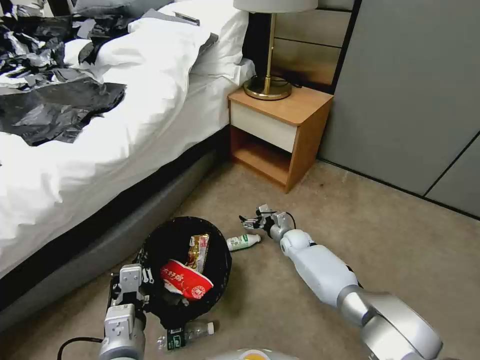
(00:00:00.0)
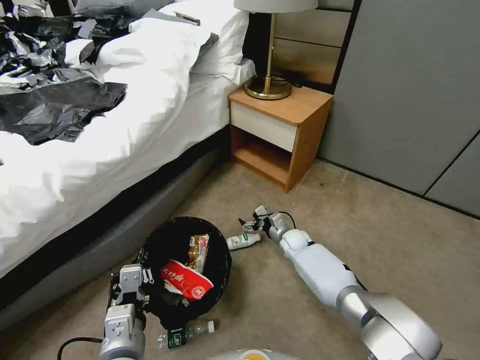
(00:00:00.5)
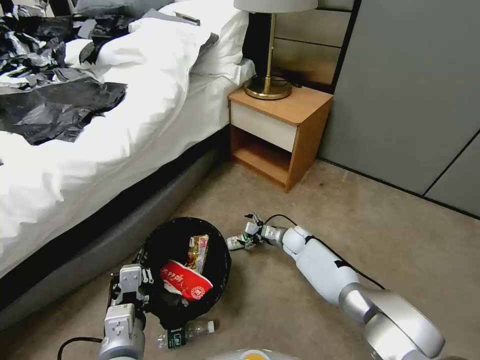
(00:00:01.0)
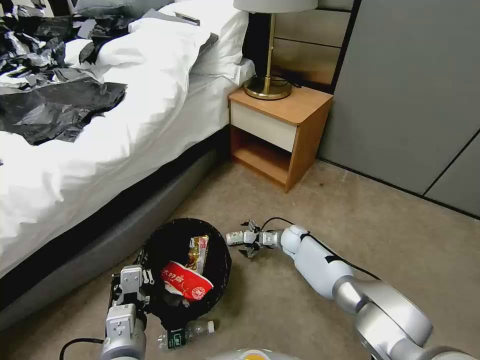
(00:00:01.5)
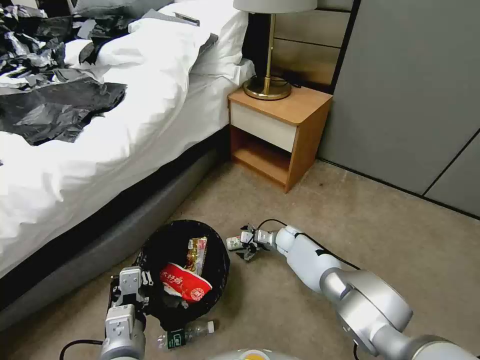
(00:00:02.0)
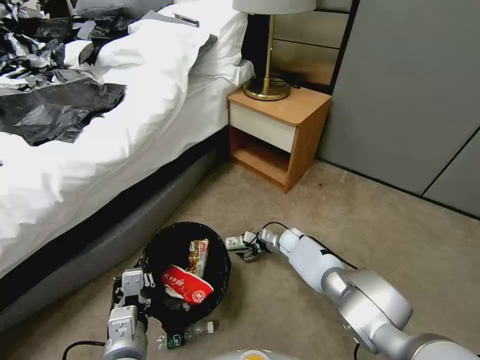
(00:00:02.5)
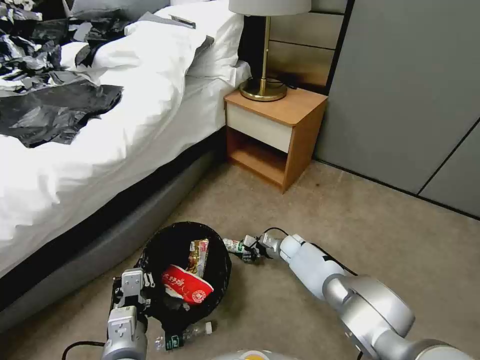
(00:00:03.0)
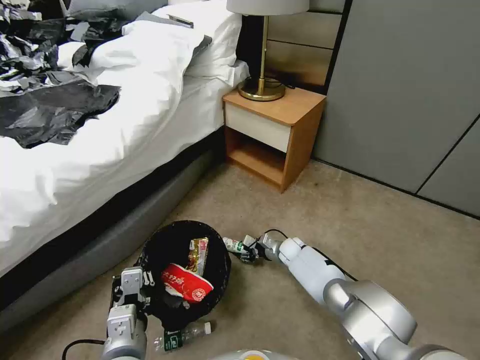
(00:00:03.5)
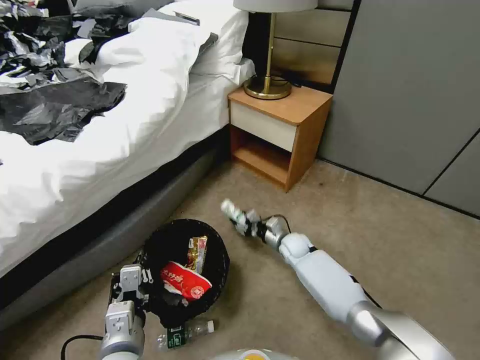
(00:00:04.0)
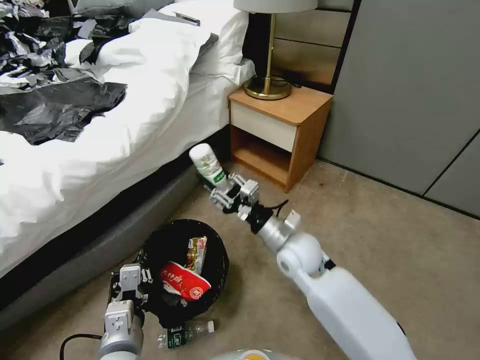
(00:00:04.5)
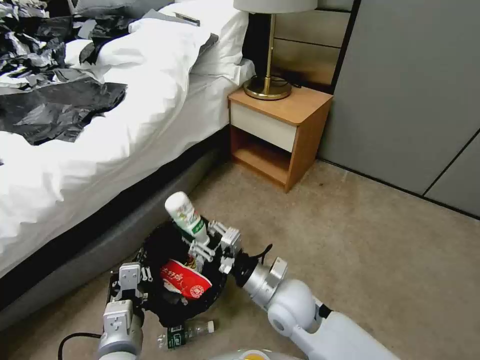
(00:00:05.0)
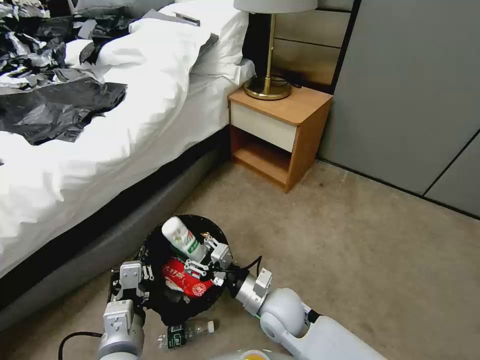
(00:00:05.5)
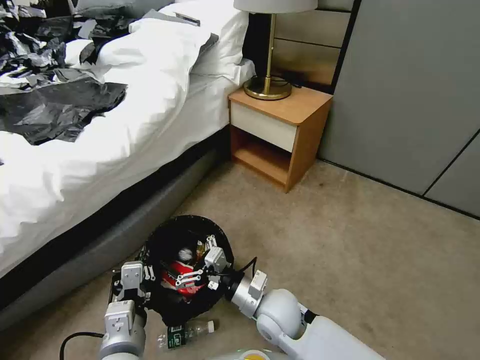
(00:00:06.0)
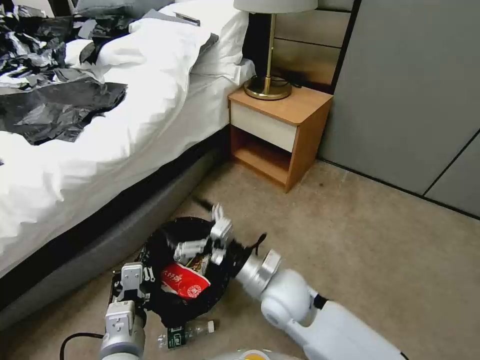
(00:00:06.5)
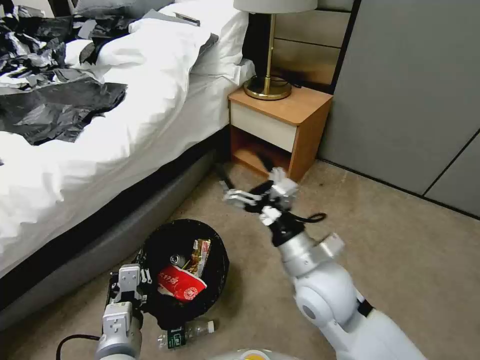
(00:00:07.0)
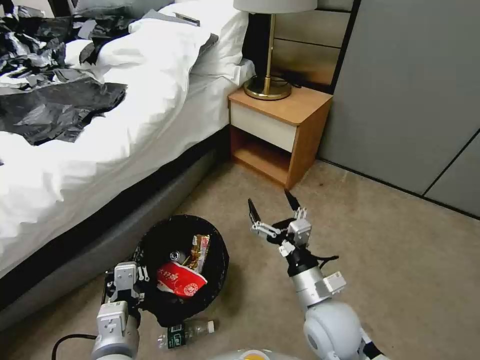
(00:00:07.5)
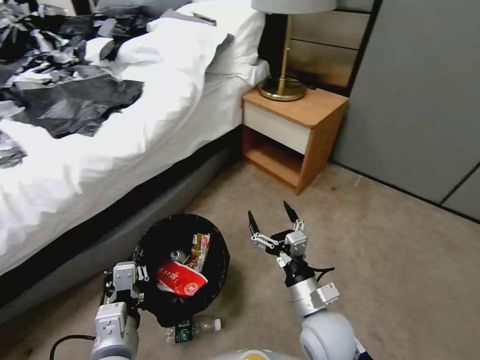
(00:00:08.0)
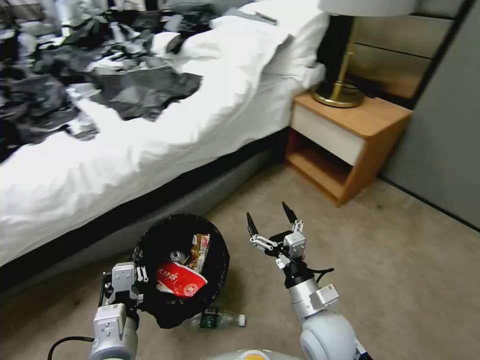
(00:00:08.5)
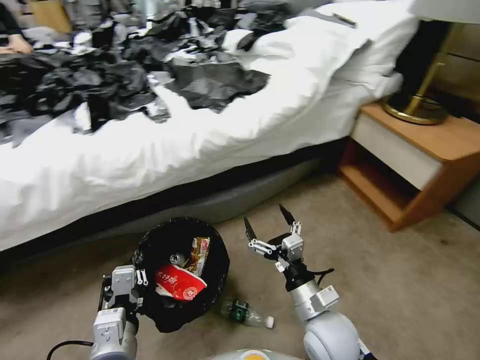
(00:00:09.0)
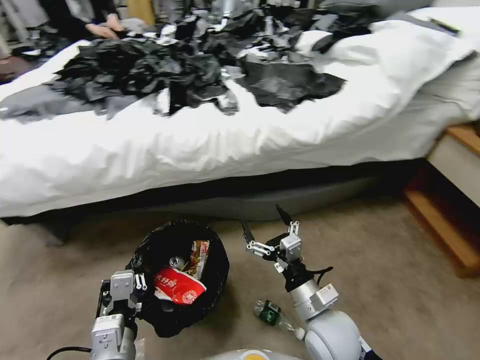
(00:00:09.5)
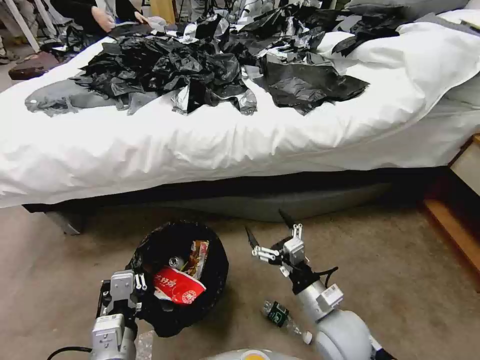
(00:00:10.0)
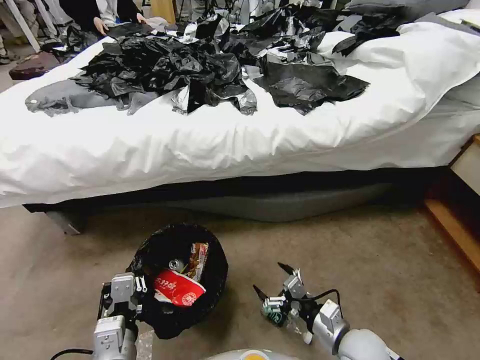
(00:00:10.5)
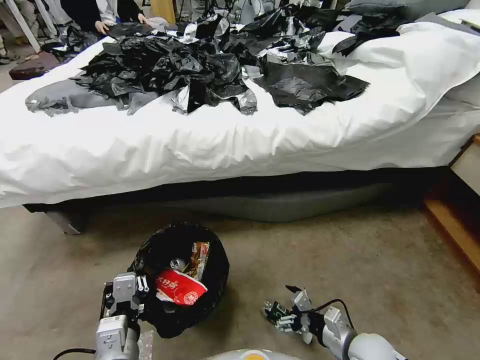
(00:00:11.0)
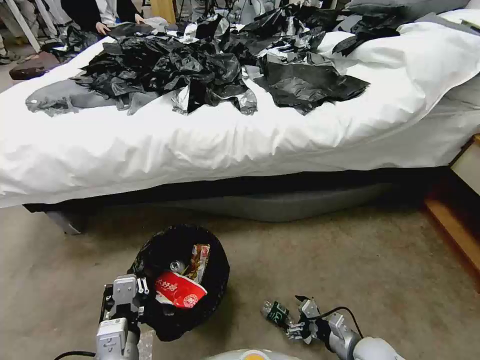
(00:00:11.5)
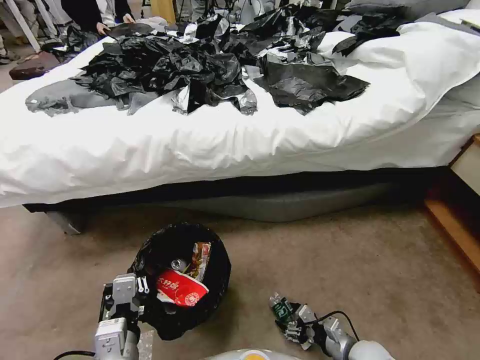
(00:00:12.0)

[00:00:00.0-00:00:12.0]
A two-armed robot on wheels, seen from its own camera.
Task of the whole recording: Pick up the trash bin, then pick up the garbage from the floor and place it into the trash bin.
00:00:02.0 to 00:00:04.0: The right gripper shifts by about 5 cm, and closes.
00:00:04.0 to 00:00:06.0: The right gripper moves backward, upward and to the left, some 25 cm, and opens.
00:00:06.0 to 00:00:08.0: The right gripper heads to the right, covering roughly 10 cm, and travels upward and back again, roughly 15 cm each way.
00:00:10.0 to 00:00:12.0: The right gripper heads downward and to the right, covering approximately 20 cm.

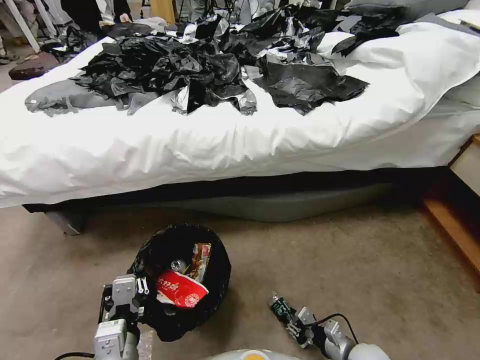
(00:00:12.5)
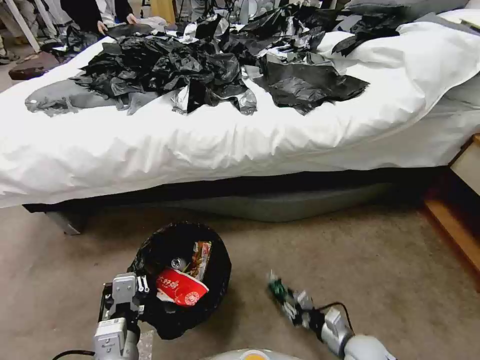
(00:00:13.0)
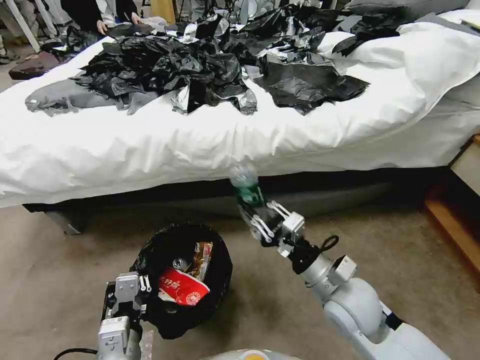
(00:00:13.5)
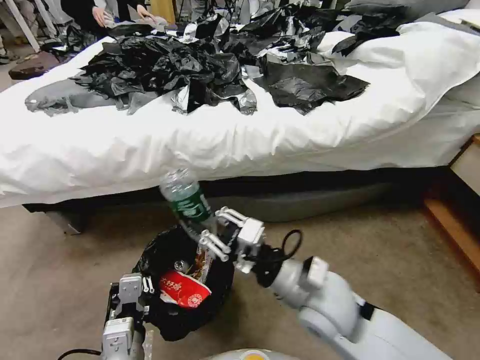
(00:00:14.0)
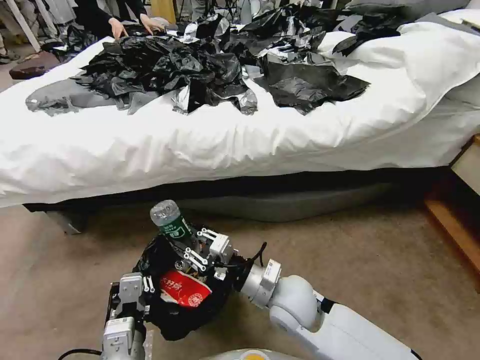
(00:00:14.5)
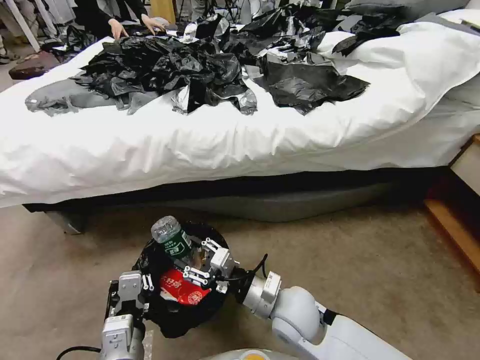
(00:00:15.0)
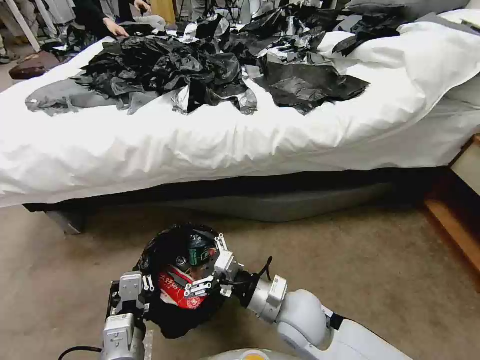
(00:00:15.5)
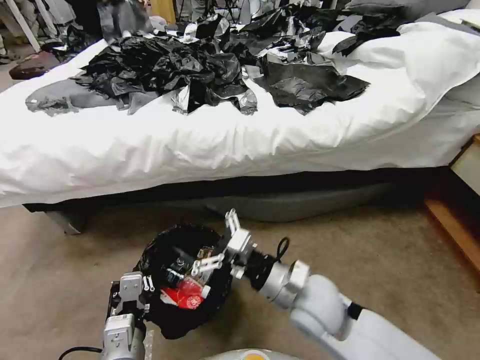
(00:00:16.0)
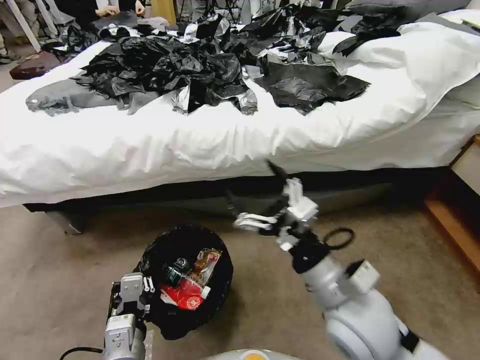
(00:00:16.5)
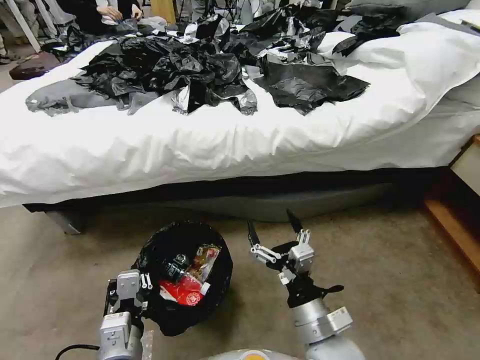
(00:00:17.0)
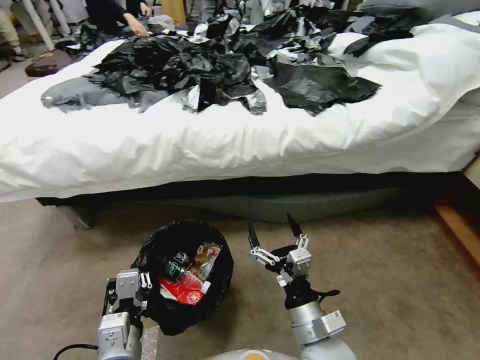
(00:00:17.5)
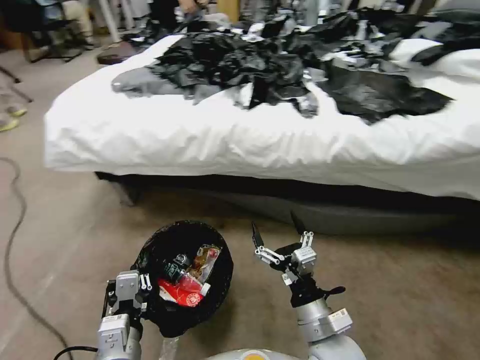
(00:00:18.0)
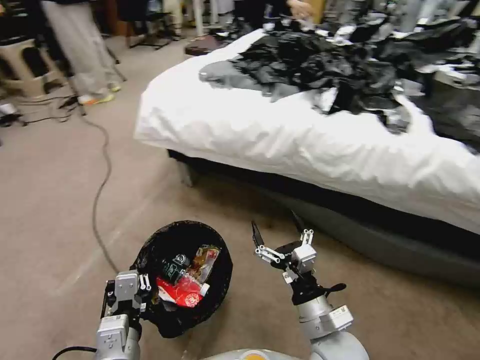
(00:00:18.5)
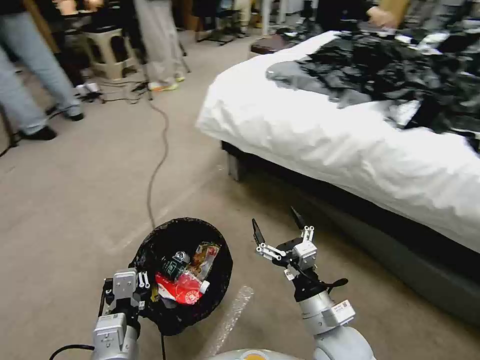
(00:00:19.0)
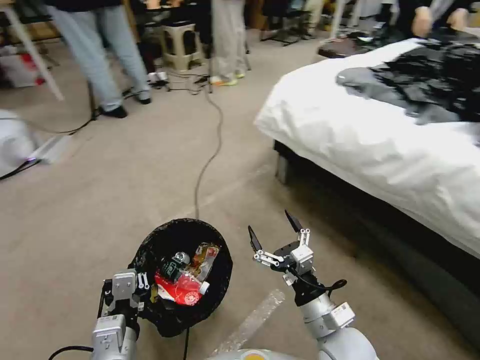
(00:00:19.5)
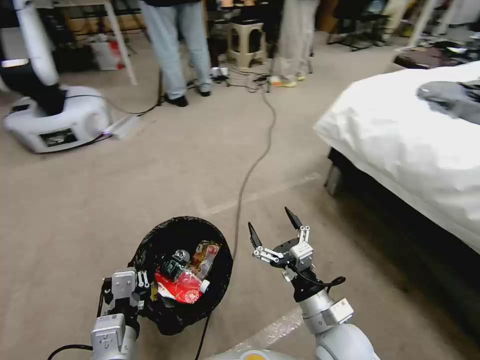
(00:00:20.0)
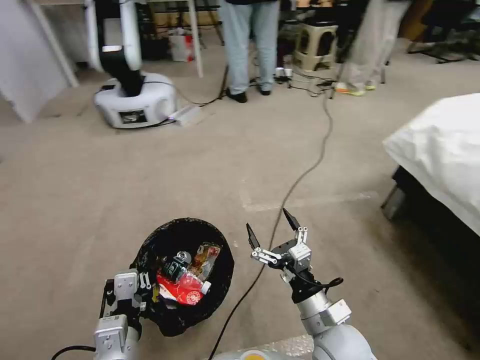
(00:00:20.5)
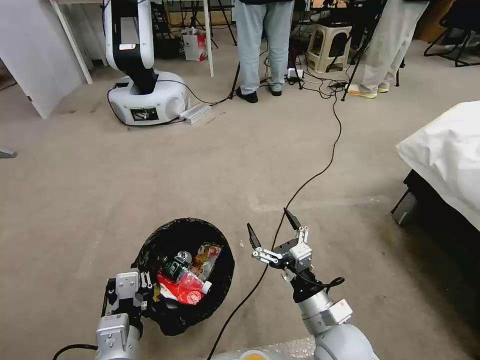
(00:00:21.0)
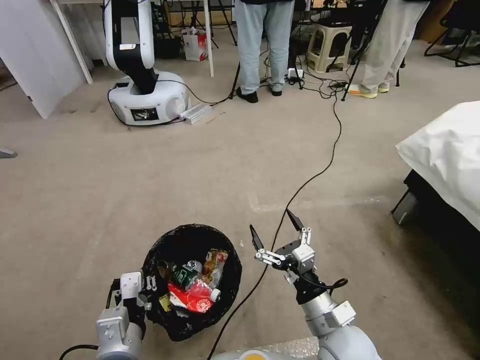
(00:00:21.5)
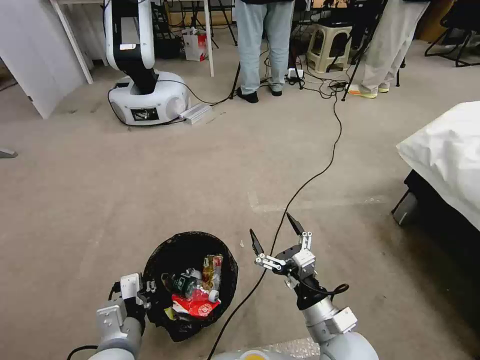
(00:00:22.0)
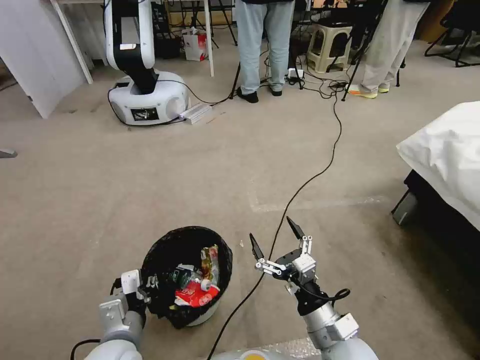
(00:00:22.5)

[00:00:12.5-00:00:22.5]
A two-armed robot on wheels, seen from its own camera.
Task of the whole recording: Pick up the trash bin, then pick up the garbage from the floor and place it into the trash bin.
00:00:12.5 to 00:00:14.5: The right gripper heads upward and to the left, covering roughly 30 cm.
00:00:14.5 to 00:00:16.5: The right gripper heads upward, to the right and backward, covering some 15 cm, and opens up.
00:00:16.5 to 00:00:18.5: The right gripper travels downward by roughly 10 cm.
00:00:20.5 to 00:00:22.5: The left gripper moves approximately 5 cm.

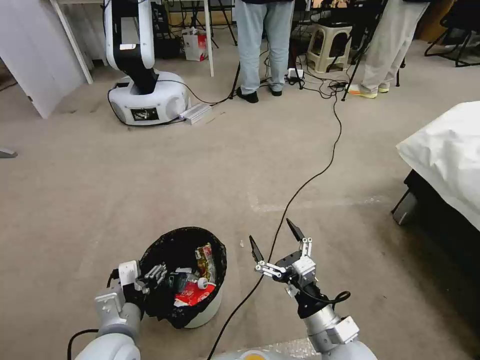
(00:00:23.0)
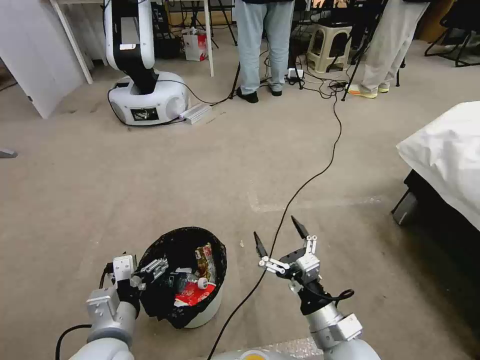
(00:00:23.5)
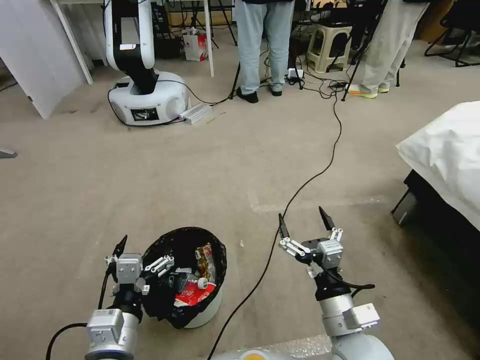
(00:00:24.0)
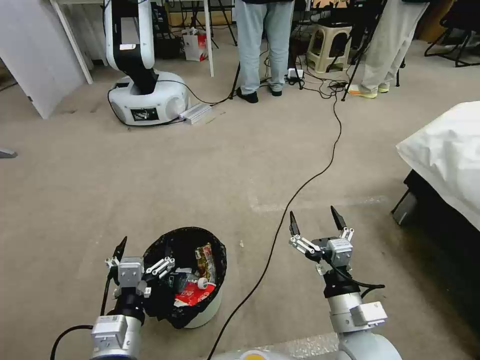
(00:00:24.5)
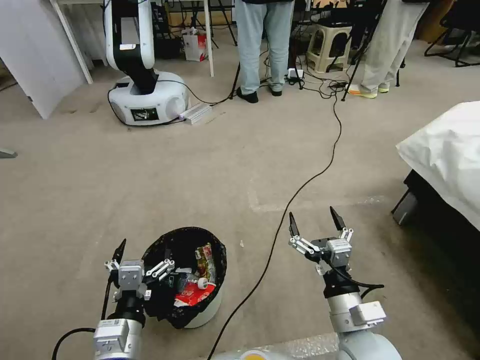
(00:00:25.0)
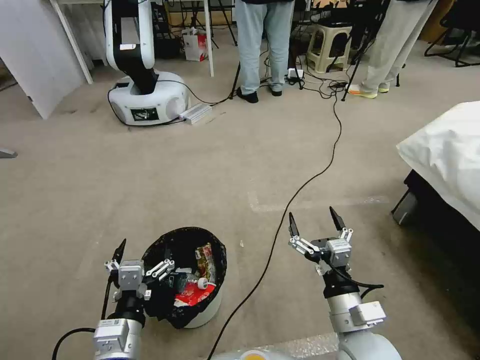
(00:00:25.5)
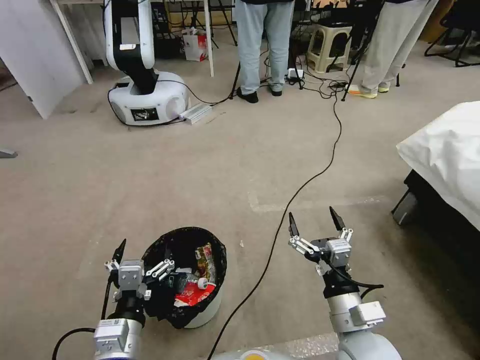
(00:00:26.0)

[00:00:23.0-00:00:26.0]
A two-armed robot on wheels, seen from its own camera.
Task of the whole recording: Pick up the trash bin, then pick up the garbage from the floor and place it into the trash bin.
00:00:23.0 to 00:00:24.5: The left gripper shifts by approximately 5 cm.
00:00:24.5 to 00:00:26.0: The two grippers keep their place.
